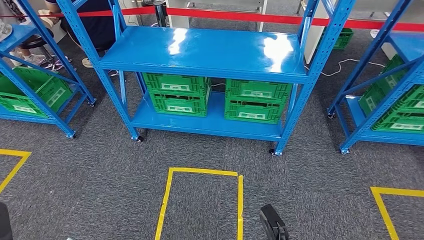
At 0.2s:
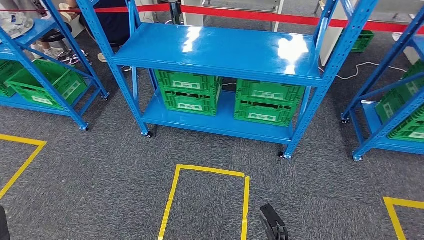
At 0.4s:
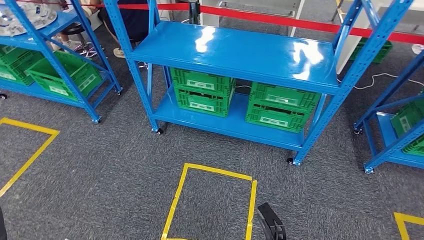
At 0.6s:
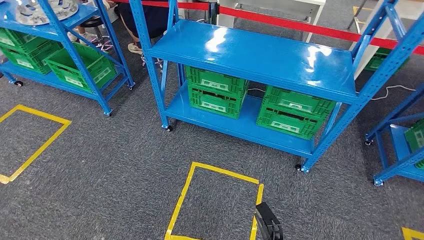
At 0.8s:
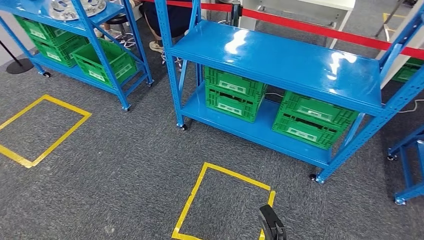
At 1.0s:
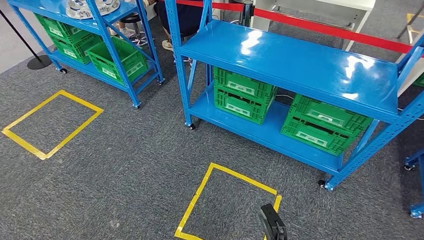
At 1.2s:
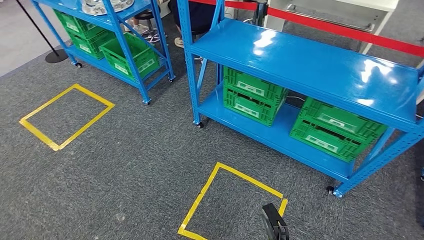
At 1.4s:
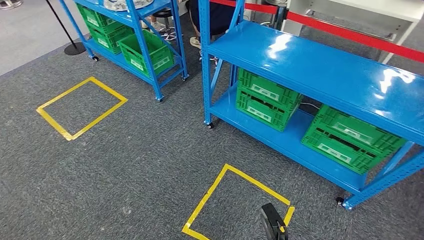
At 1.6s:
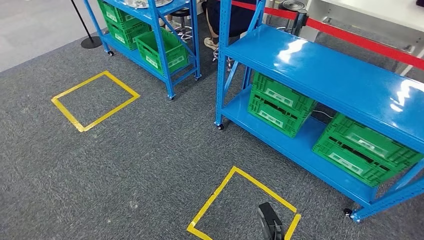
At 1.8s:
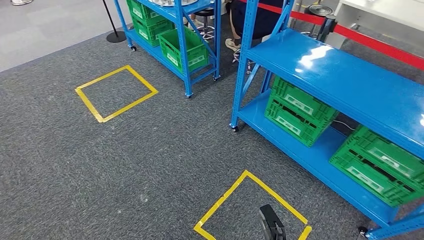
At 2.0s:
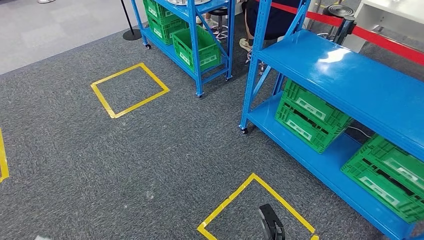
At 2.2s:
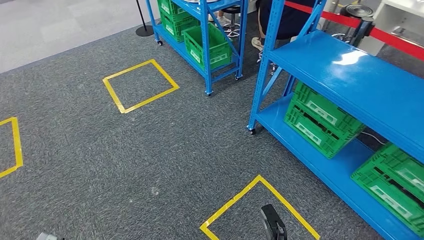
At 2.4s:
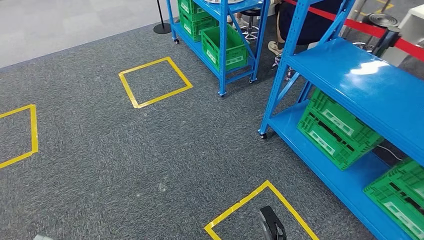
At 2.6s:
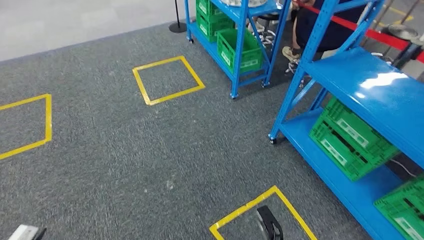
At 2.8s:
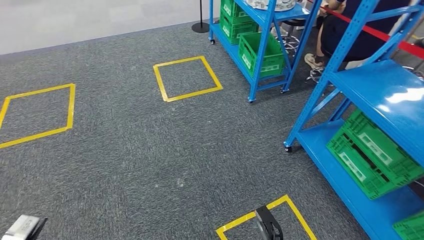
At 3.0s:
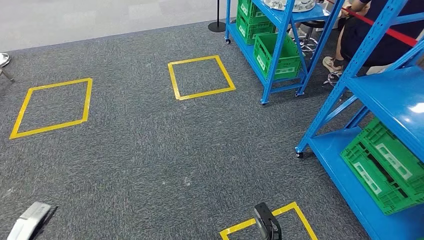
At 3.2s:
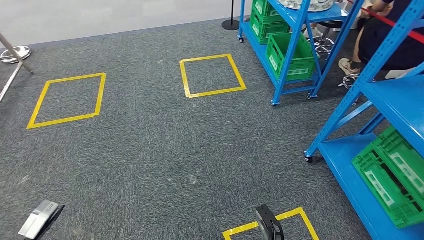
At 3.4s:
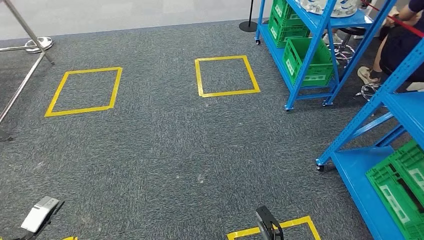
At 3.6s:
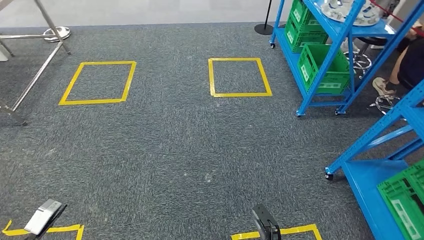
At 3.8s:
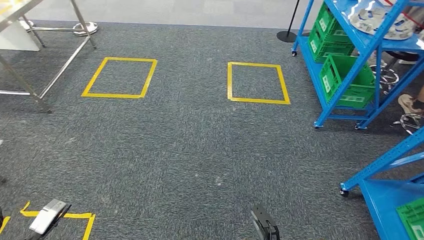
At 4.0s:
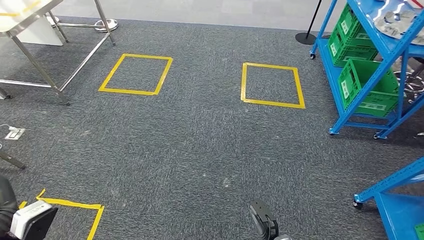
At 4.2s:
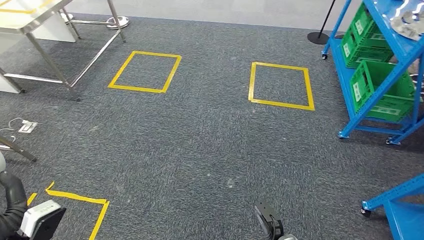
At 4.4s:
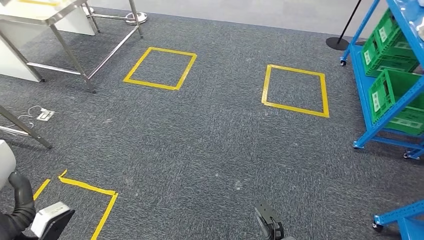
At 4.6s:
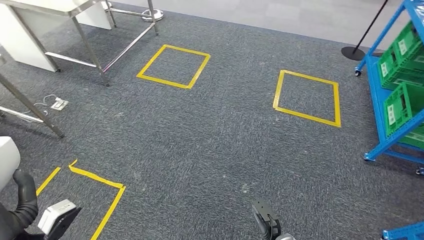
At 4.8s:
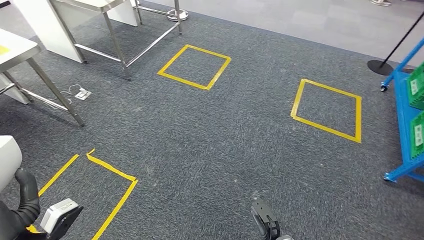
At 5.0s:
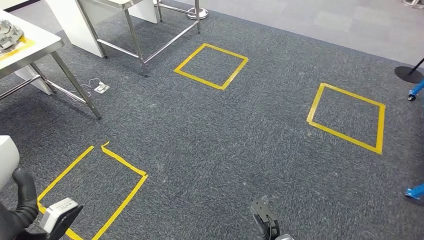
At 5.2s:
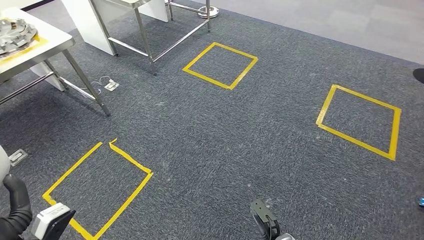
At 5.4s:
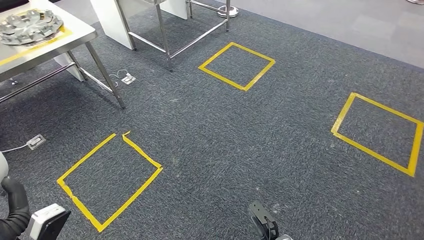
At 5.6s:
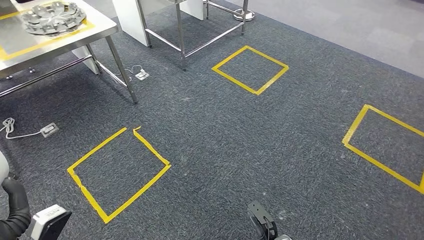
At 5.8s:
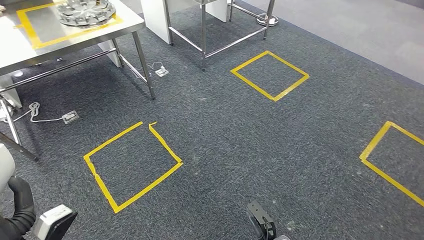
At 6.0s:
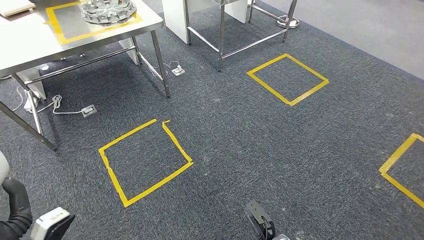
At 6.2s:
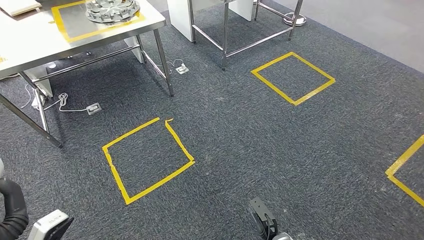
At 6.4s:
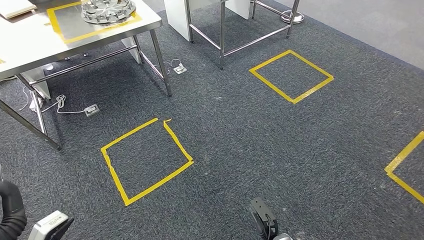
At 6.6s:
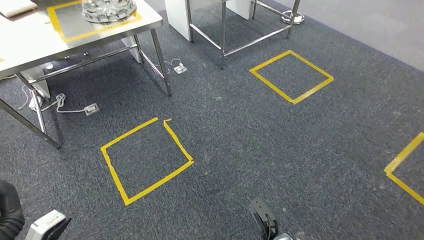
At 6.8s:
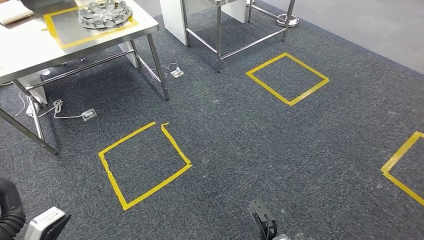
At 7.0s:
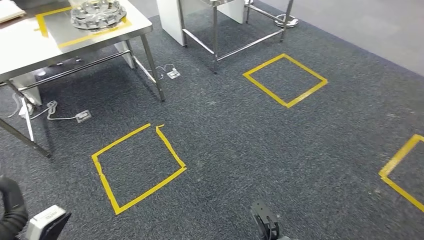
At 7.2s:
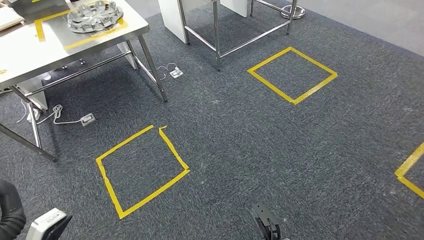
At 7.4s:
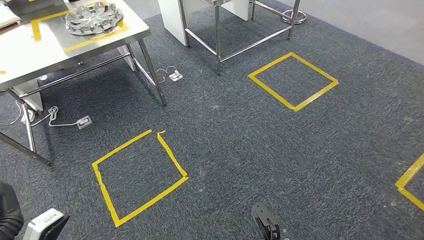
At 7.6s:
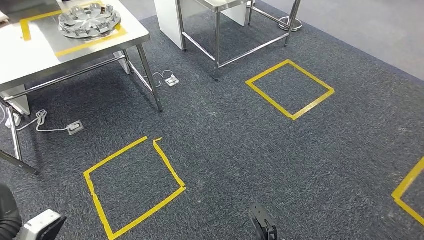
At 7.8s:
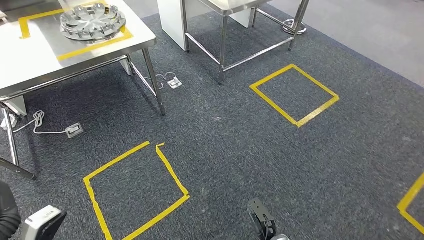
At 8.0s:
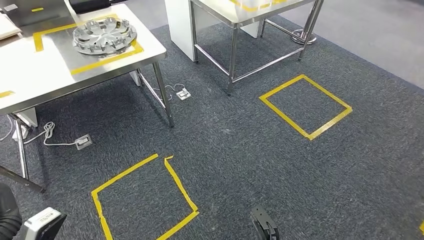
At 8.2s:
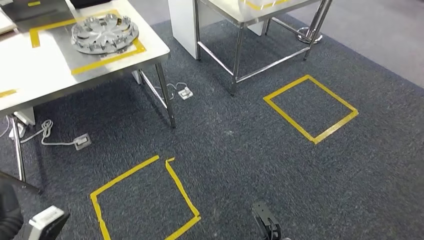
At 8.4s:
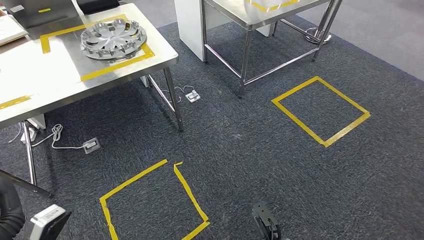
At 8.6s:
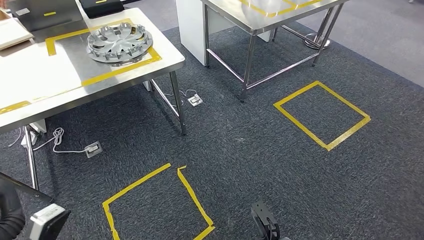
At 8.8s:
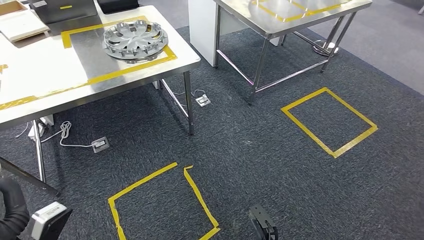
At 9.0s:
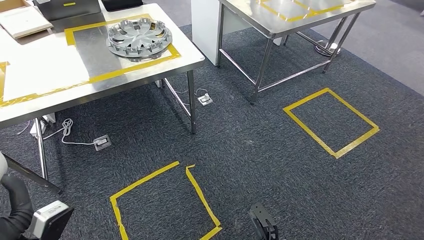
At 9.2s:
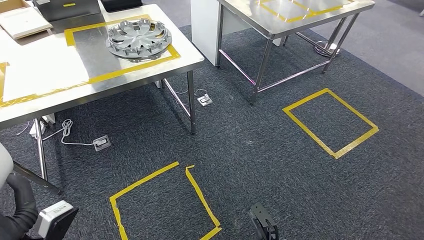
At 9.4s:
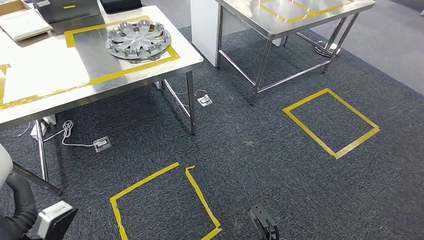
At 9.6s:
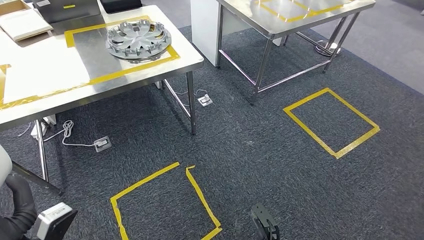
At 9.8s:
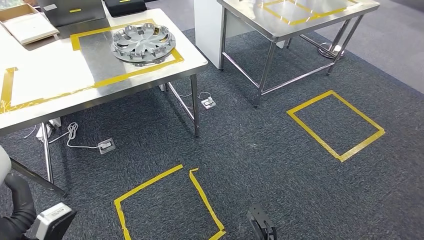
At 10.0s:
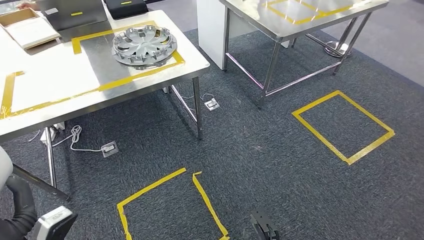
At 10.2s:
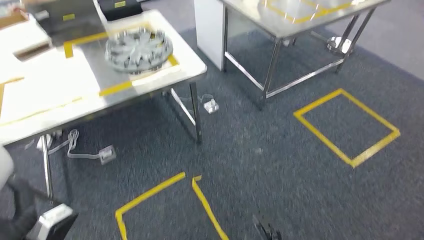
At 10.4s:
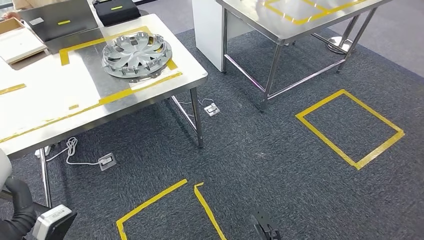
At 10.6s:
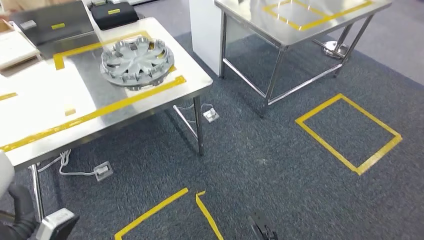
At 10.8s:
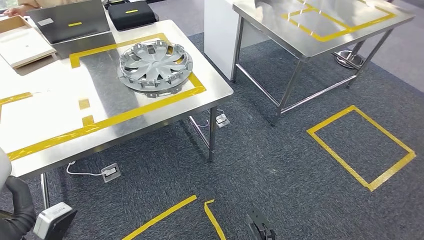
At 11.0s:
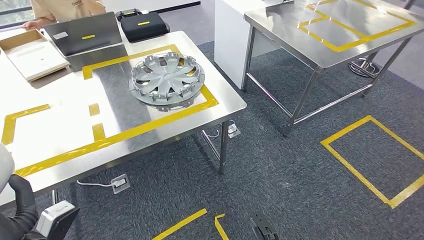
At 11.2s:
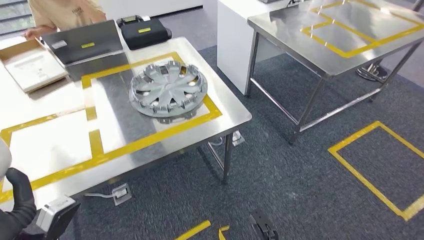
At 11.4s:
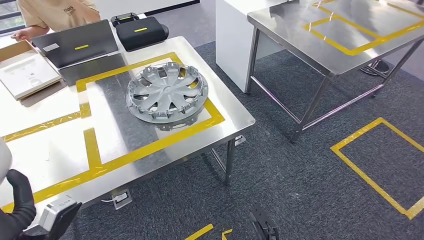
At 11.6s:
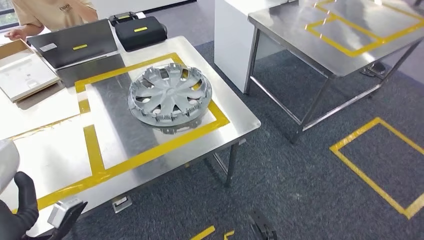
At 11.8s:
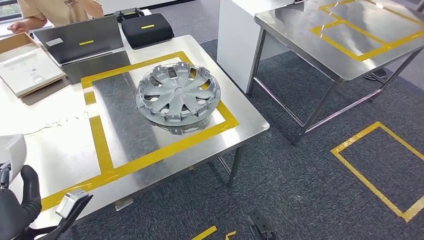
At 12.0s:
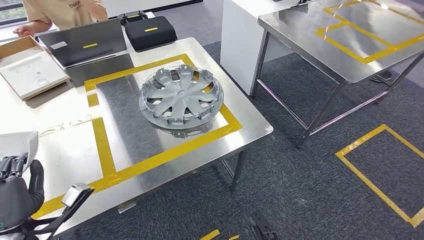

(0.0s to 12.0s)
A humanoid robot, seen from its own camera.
Step, 0.0s - 11.0s: Move the small component to the workbench.

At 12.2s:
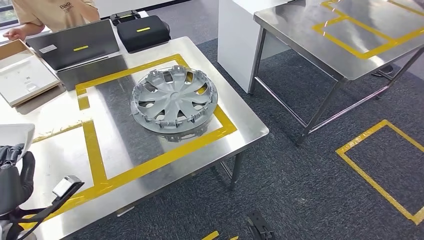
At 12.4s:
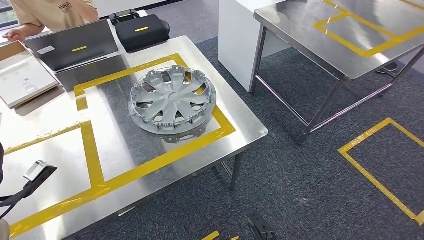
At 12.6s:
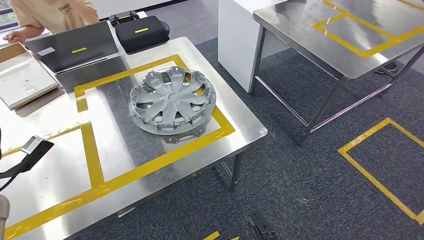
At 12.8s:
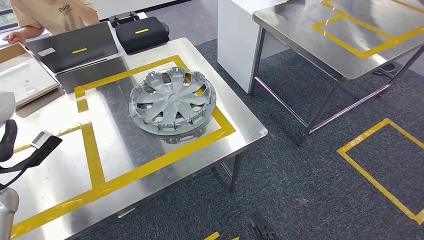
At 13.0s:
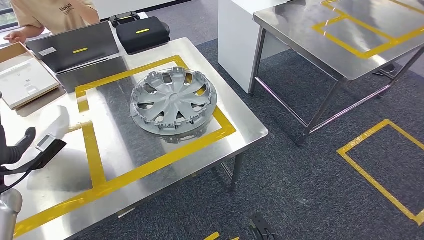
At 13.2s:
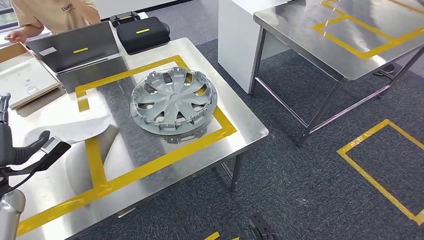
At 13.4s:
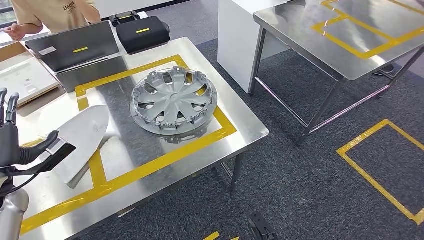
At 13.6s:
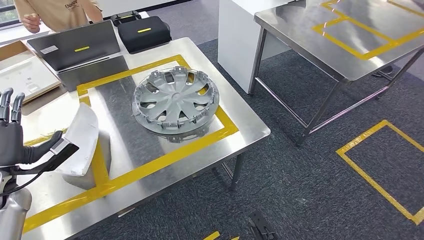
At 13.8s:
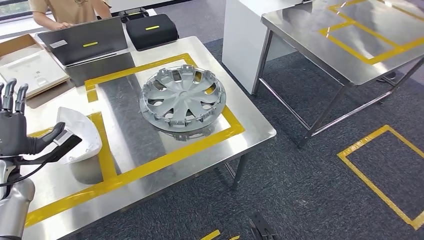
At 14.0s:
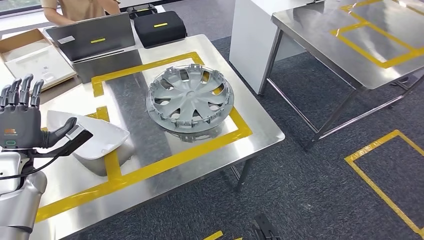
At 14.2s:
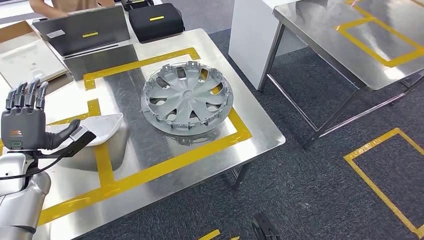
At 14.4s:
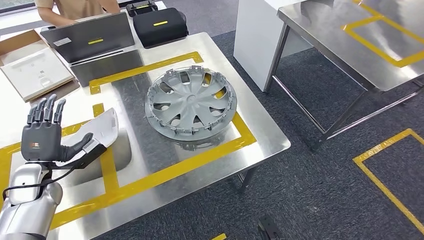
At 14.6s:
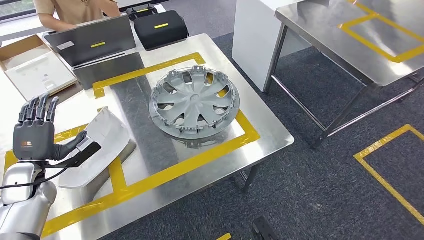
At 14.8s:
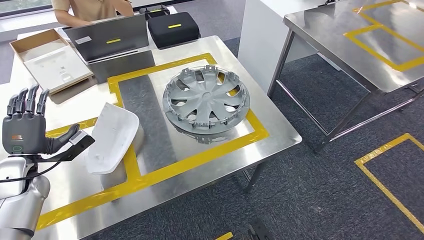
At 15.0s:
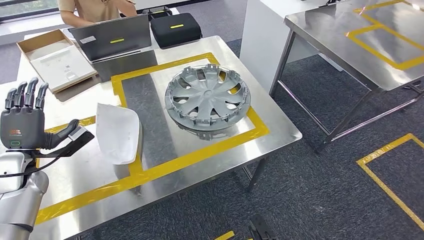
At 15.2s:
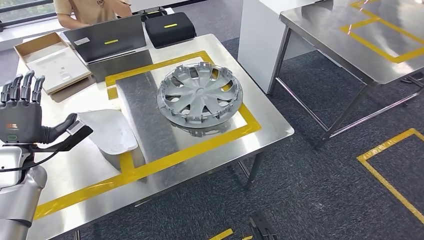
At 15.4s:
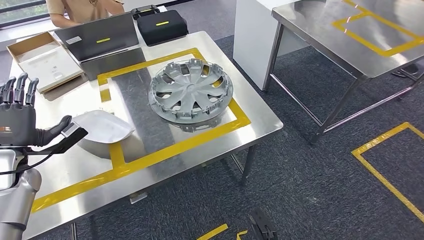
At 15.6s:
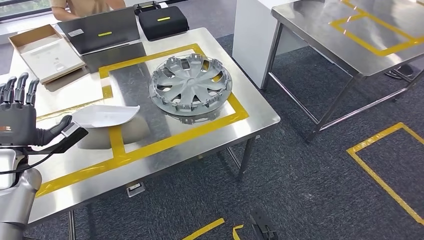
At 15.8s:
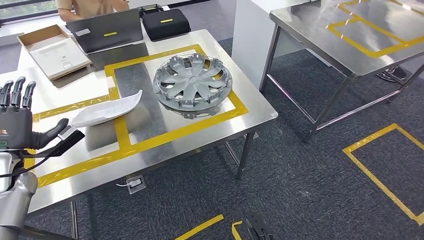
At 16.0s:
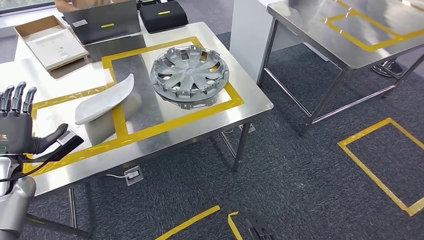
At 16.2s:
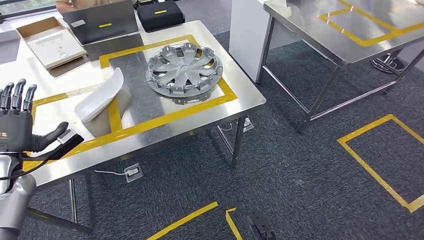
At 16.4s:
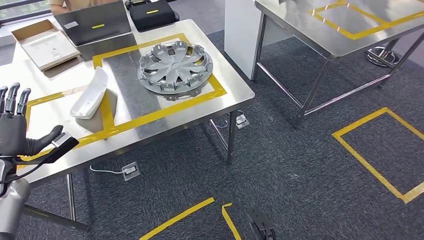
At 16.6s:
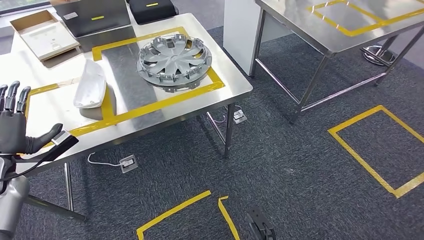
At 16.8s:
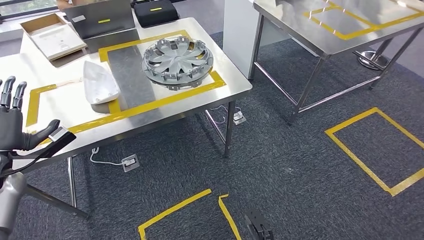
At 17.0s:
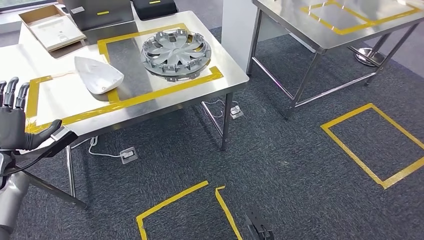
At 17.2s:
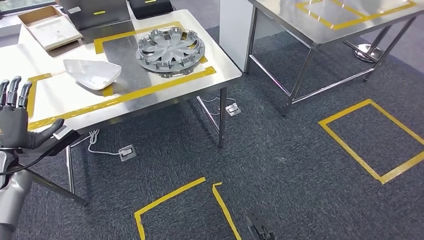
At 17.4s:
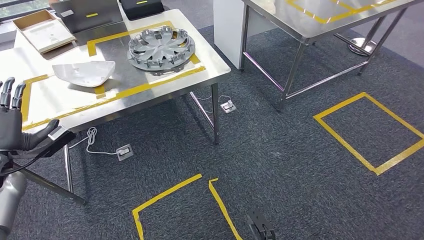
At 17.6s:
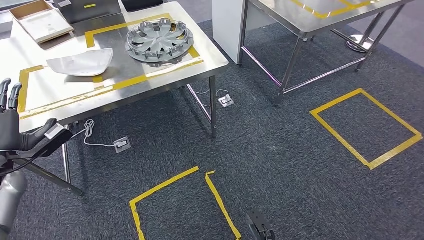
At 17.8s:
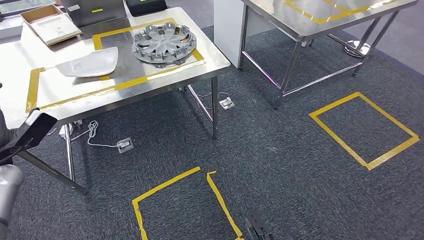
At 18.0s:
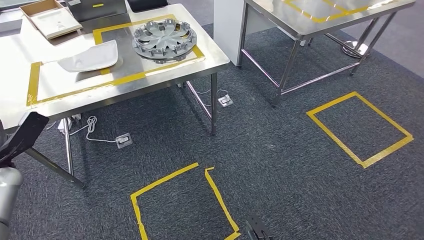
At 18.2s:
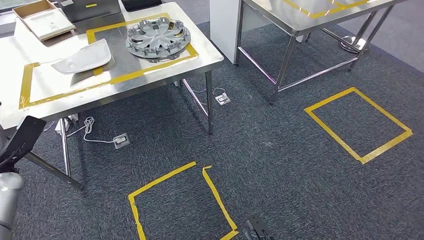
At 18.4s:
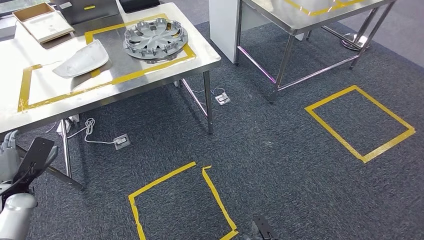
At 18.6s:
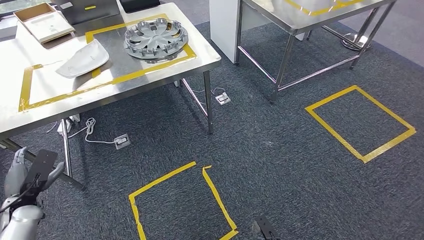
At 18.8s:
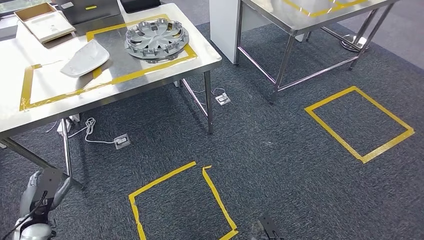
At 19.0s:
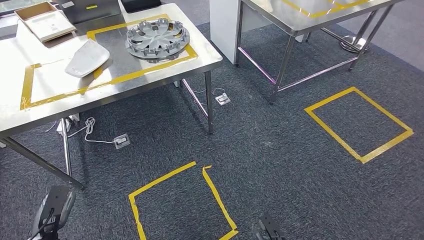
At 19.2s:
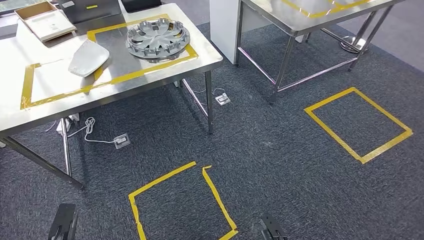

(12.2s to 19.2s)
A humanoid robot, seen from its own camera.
Step, 12.2s - 14.4s: Insert the small component into the corresponding slot on the workbench.
Step, 14.8s - 19.0s: Return to the initial position at the workbench.
12.2s - 13.6s: The left hand shifts some 10 cm forward.
